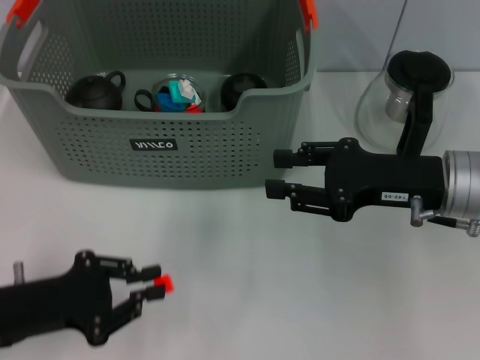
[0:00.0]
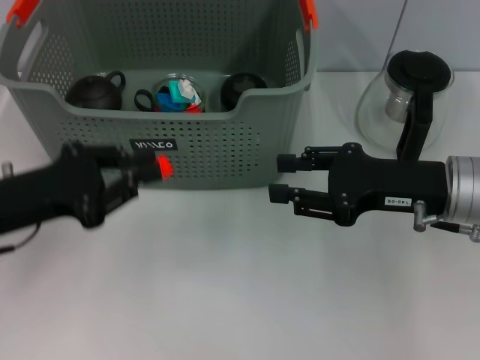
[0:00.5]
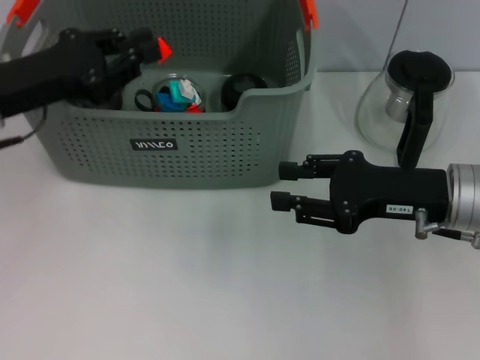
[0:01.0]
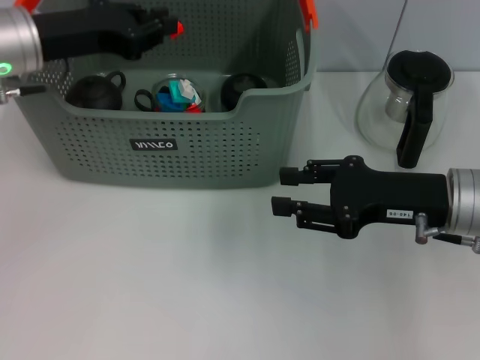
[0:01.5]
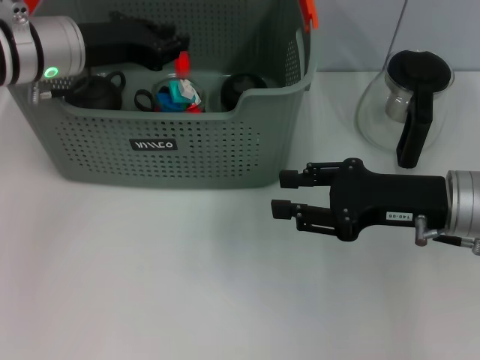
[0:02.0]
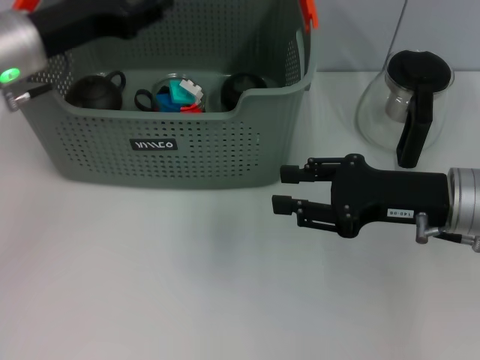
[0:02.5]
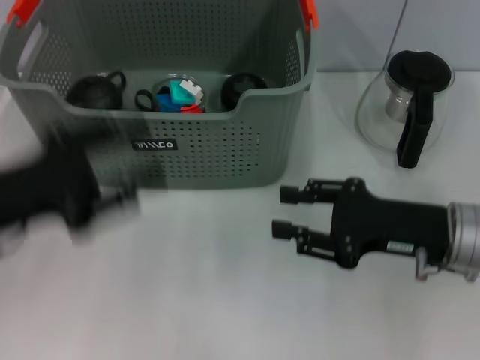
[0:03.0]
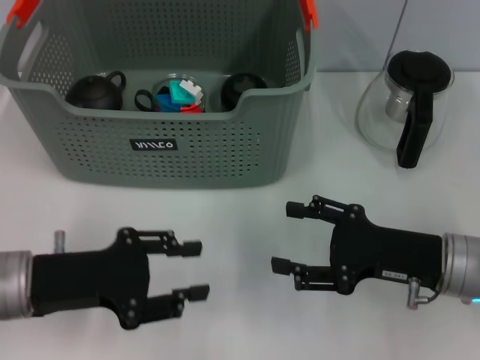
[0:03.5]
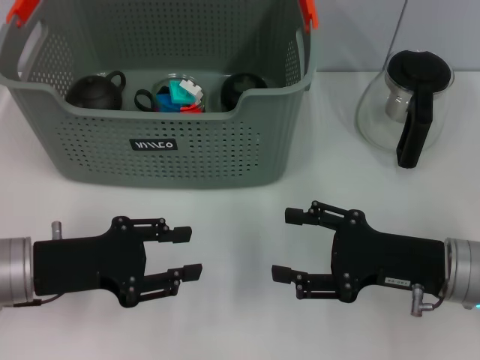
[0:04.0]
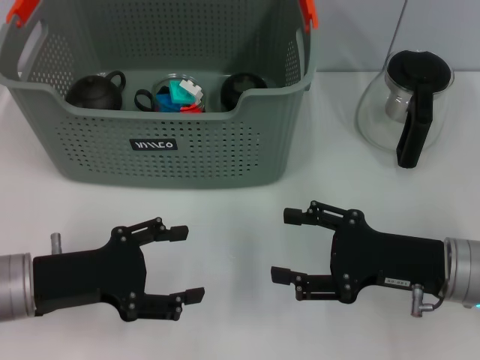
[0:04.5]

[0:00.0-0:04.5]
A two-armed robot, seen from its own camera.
Task of the whole recording: pick up the teacup on the table and place it into the storage bin, pick up the block on the table and place it into the storage bin.
Step, 0:00.0 to 0:02.0: Place the orange block in the storage box with left gripper.
0:00.0 to 0:02.0: The left gripper shifts approximately 25 cm forward and upward.
0:02.0 to 0:04.5: The right gripper heads downward, covering about 5 cm, and opens its fingers. Meanwhile the left gripper shifts about 20 cm backward and downward, and opens.
